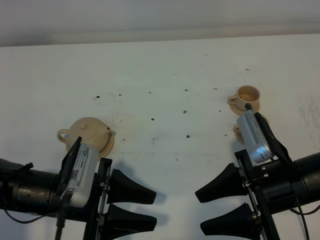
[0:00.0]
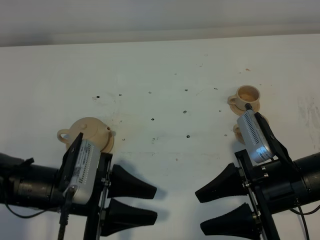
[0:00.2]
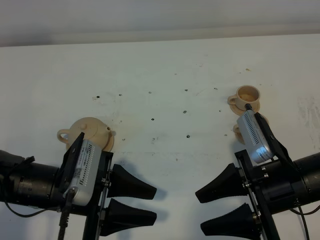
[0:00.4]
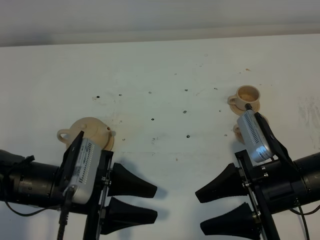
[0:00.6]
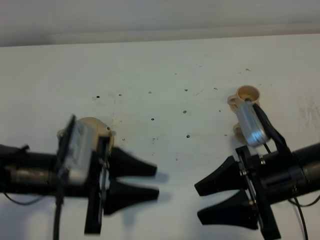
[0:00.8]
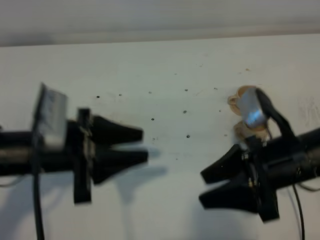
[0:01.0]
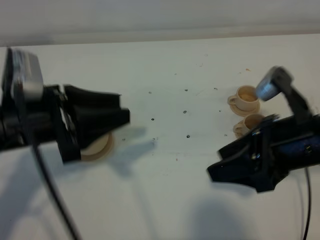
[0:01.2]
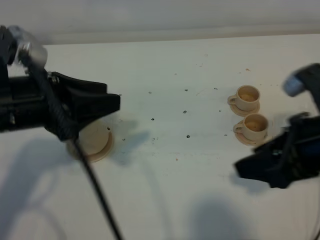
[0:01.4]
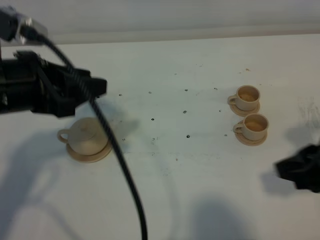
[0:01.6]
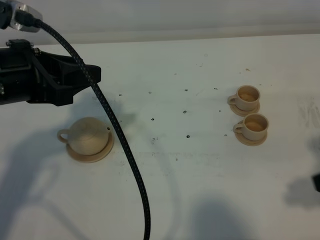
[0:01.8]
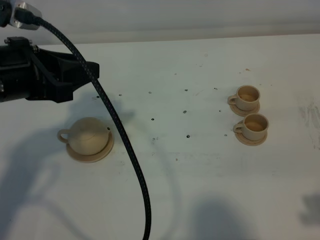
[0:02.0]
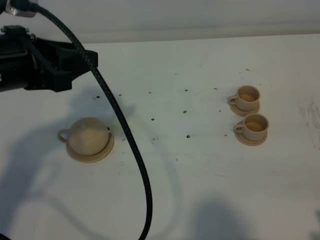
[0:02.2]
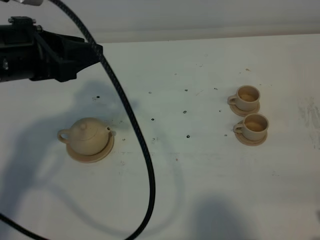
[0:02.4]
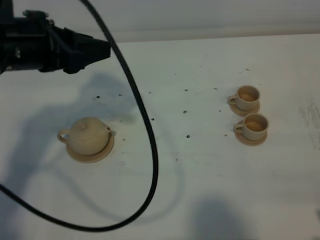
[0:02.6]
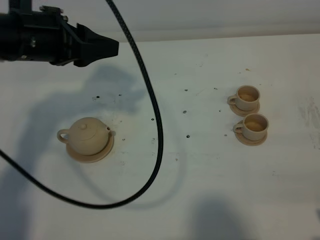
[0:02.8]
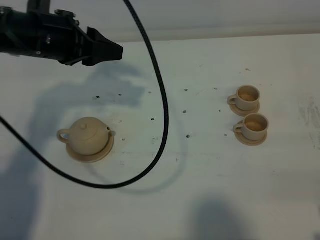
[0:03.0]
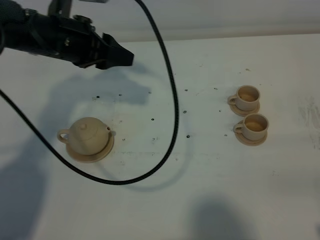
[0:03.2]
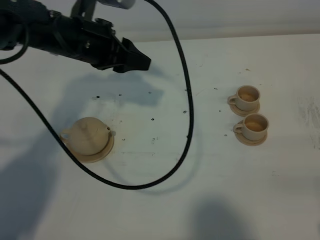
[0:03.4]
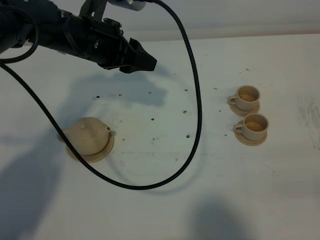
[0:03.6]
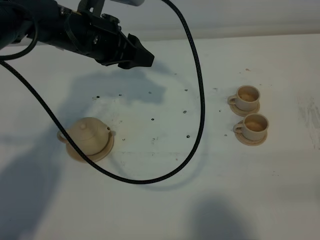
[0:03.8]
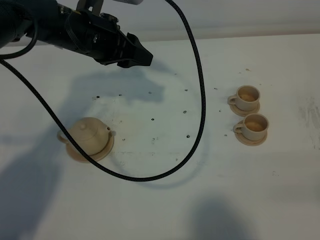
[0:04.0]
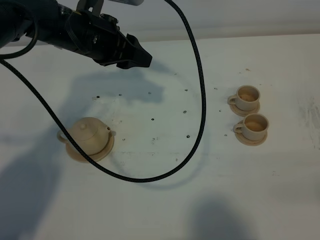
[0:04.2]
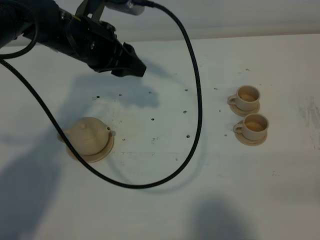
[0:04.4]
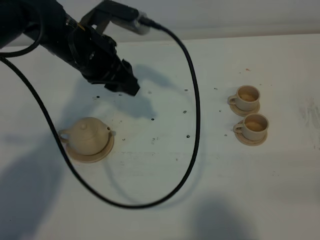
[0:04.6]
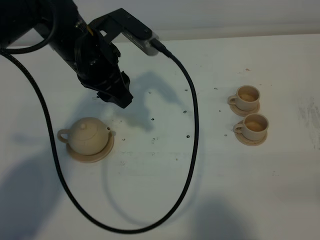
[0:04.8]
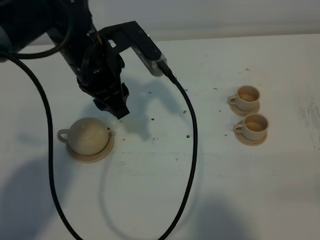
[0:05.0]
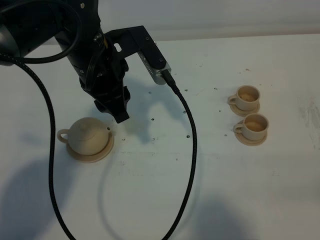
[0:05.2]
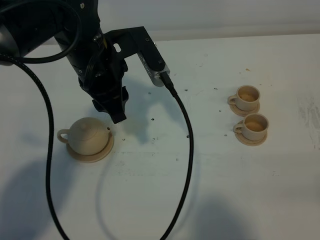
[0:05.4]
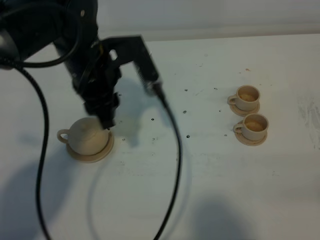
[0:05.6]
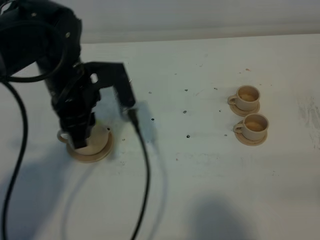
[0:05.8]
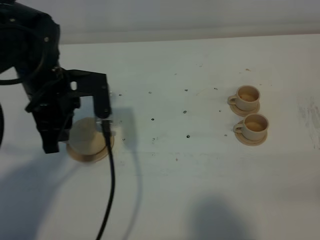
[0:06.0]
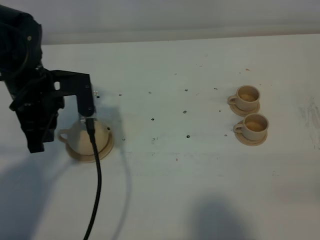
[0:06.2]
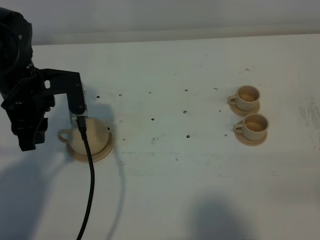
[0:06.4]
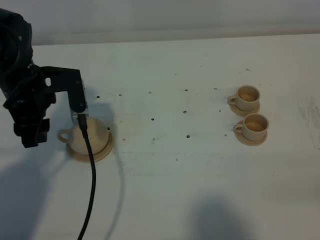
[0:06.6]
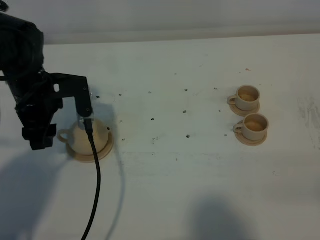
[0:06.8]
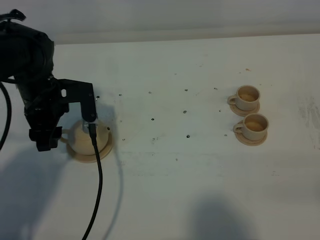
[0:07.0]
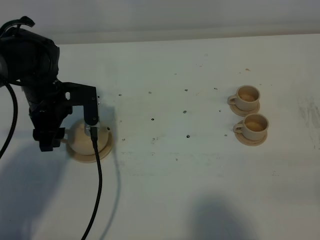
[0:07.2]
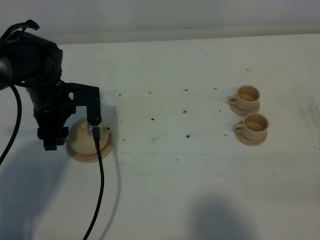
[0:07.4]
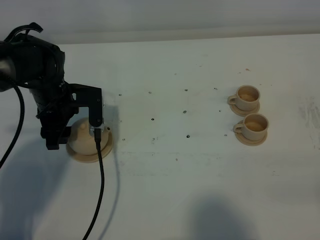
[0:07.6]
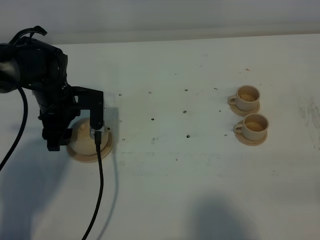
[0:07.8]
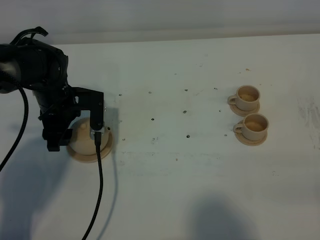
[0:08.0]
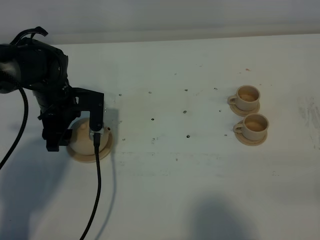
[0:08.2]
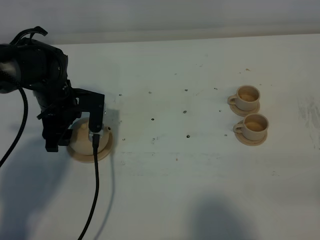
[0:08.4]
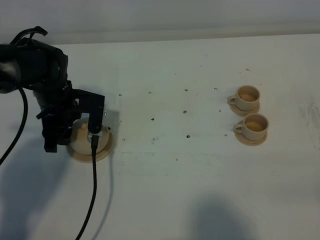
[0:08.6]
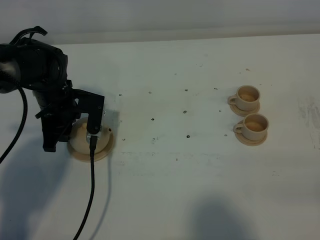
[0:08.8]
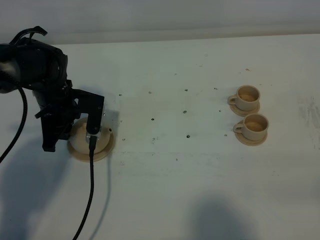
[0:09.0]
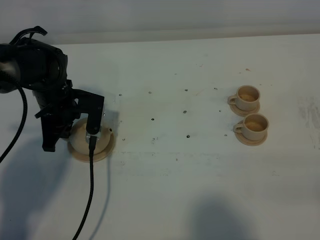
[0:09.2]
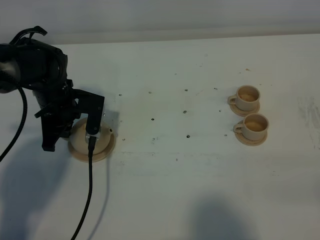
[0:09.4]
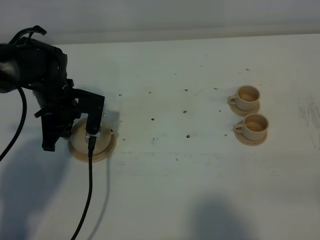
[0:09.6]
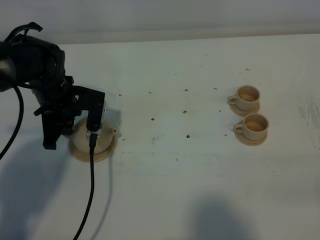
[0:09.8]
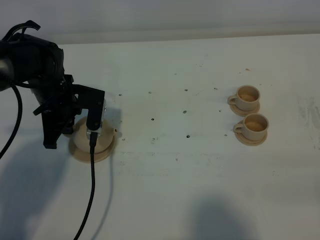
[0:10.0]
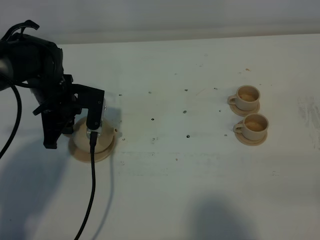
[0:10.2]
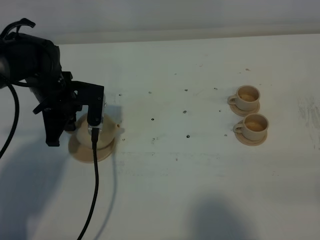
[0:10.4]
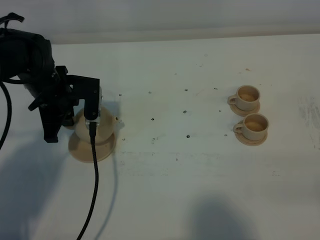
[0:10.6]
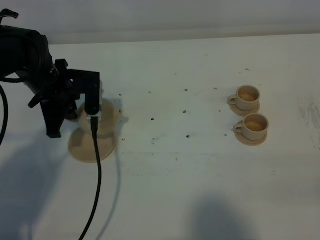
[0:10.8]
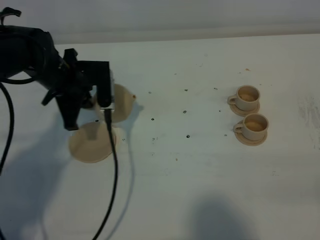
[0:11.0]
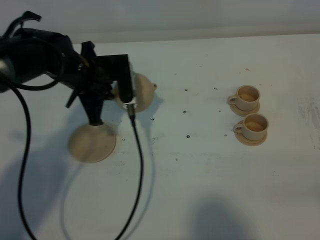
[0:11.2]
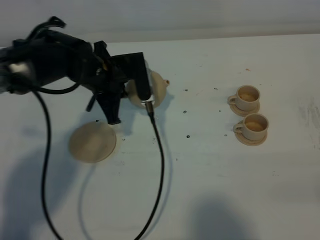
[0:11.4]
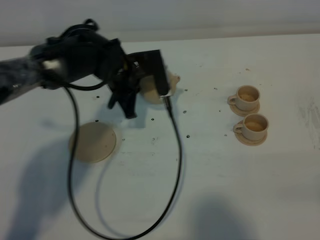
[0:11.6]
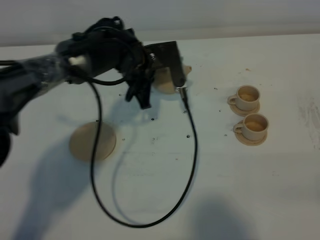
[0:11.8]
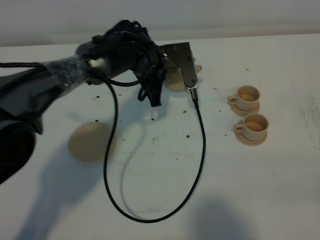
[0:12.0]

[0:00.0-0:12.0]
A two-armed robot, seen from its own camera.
Task of the whole recording: grasp the brown teapot and pour the tea into the two brown teacups one by one, put the brown teapot back in its original place.
Step, 0:00.0 to 0:10.4: Pick up the teapot with the left gripper.
0:00.0 to 0:01.6: The left gripper is displaced upward and forward by some 15 cm. Meanwhile the right gripper moves upward and to the right, about 10 cm.
0:01.6 to 0:03.0: The right gripper moves backward and to the right, approximately 10 cm, while the left gripper moves forward, some 10 cm.
0:03.0 to 0:04.4: The left gripper goes some 5 cm to the right.
0:04.4 to 0:06.0: The left gripper goes some 5 cm backward, and closes its fingers.
0:06.0 to 0:07.6: The left gripper travels downward and forward by about 10 cm, and opens its fingers.
0:07.6 to 0:09.0: The left gripper closes.
0:09.0 to 0:10.4: The grippers stay close to where they were, moving slightly.
0:10.4 to 0:12.0: The left gripper moves to the right, about 20 cm.

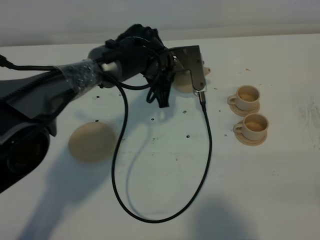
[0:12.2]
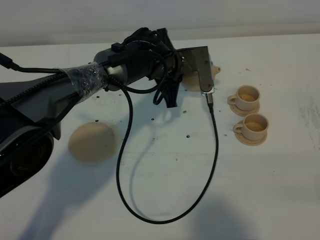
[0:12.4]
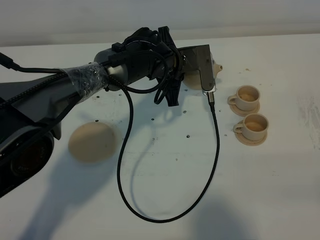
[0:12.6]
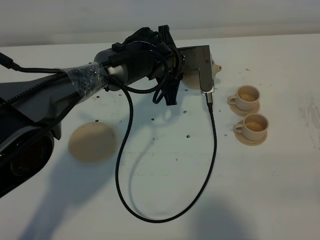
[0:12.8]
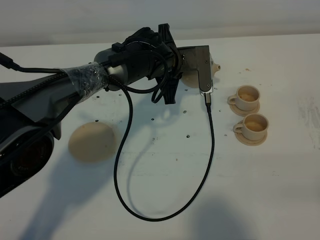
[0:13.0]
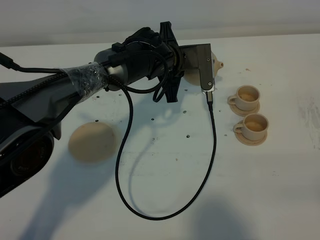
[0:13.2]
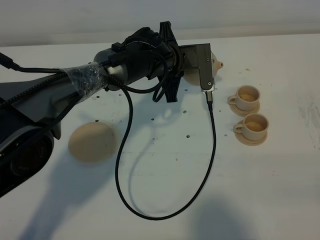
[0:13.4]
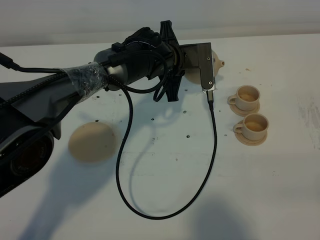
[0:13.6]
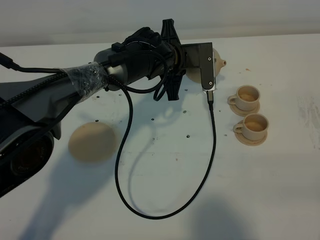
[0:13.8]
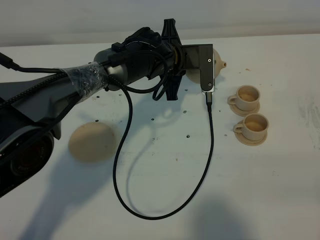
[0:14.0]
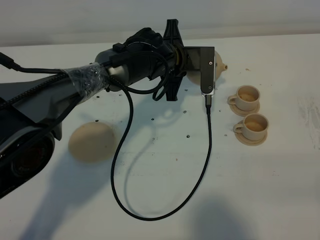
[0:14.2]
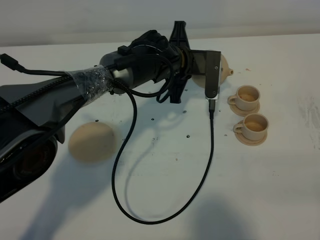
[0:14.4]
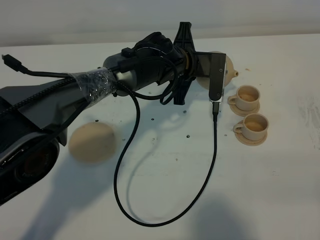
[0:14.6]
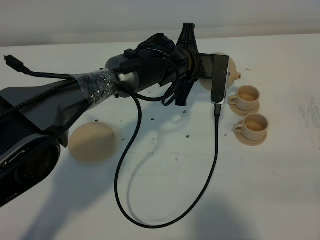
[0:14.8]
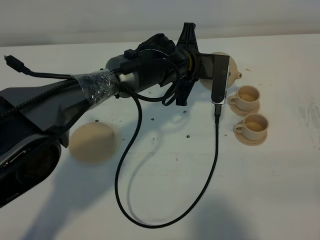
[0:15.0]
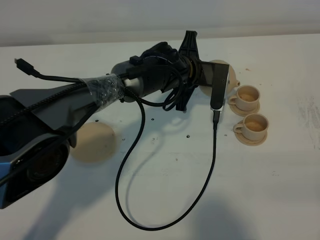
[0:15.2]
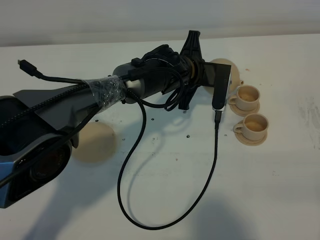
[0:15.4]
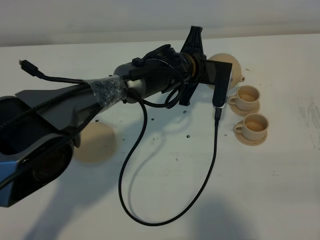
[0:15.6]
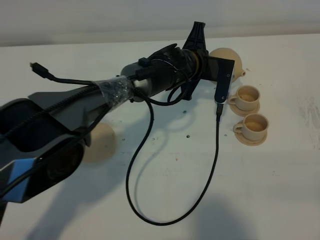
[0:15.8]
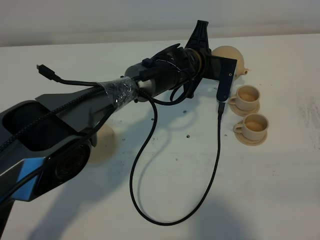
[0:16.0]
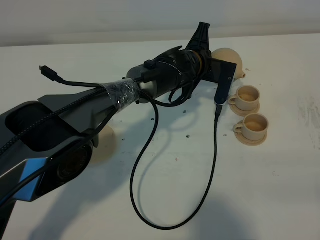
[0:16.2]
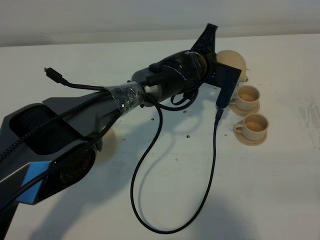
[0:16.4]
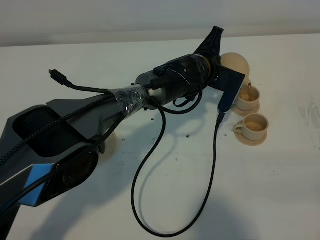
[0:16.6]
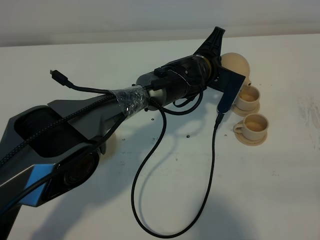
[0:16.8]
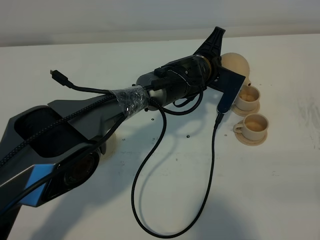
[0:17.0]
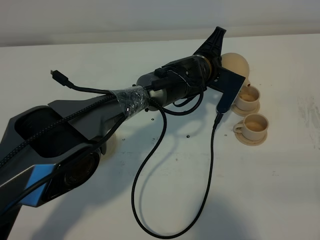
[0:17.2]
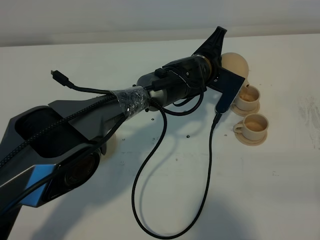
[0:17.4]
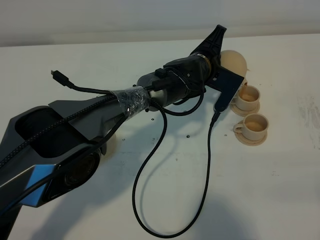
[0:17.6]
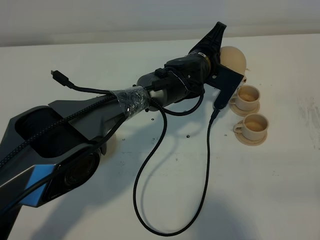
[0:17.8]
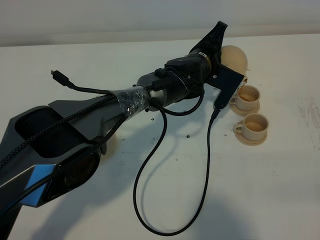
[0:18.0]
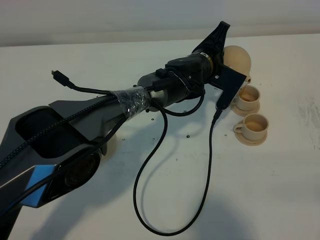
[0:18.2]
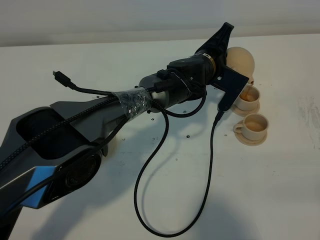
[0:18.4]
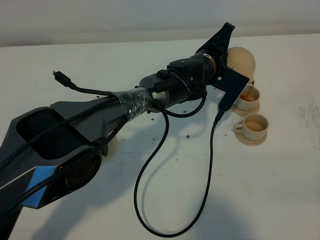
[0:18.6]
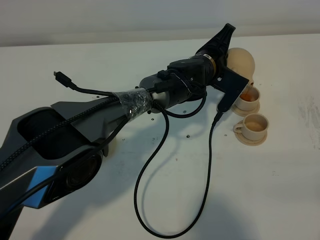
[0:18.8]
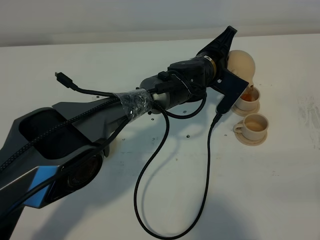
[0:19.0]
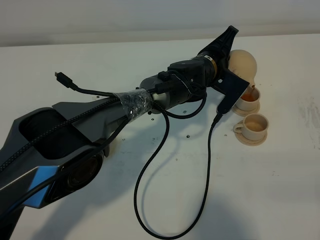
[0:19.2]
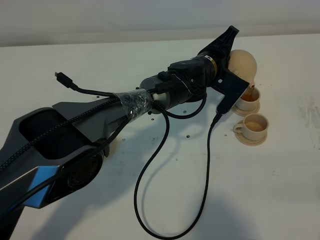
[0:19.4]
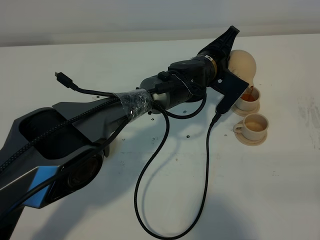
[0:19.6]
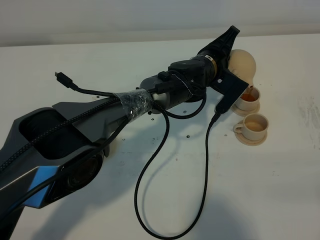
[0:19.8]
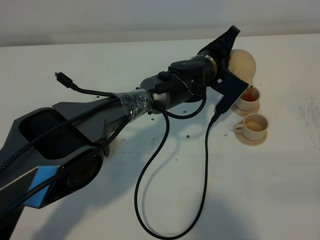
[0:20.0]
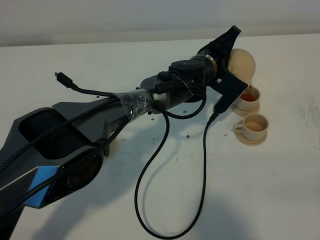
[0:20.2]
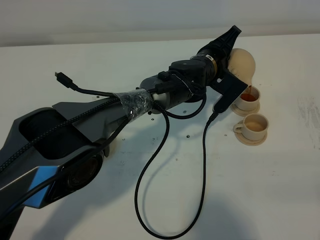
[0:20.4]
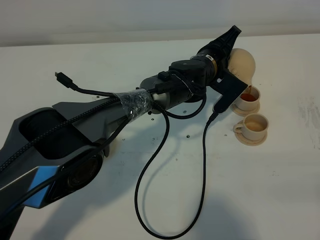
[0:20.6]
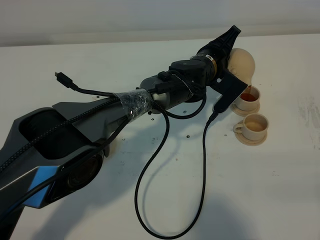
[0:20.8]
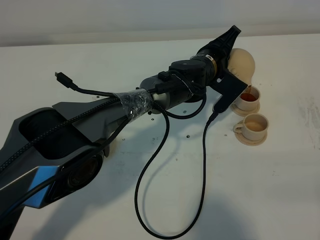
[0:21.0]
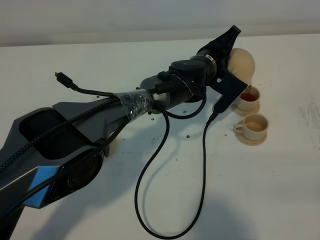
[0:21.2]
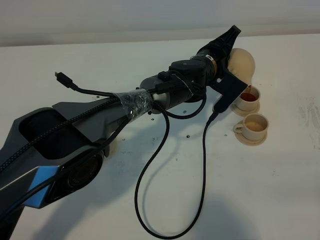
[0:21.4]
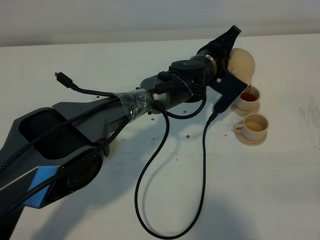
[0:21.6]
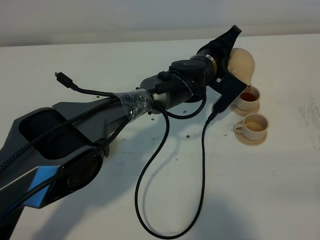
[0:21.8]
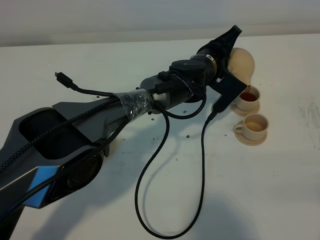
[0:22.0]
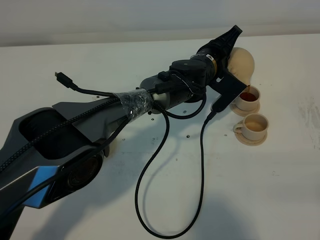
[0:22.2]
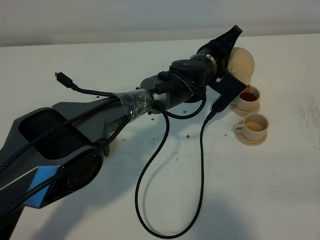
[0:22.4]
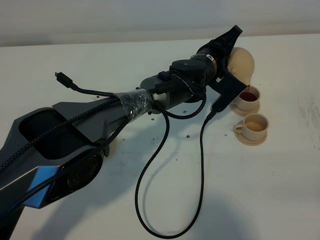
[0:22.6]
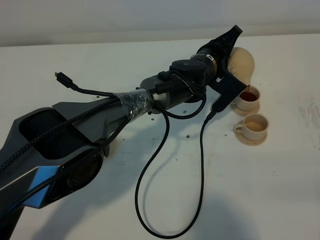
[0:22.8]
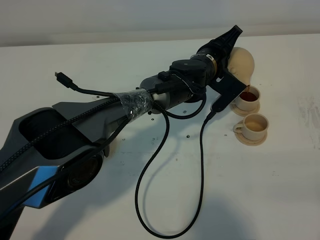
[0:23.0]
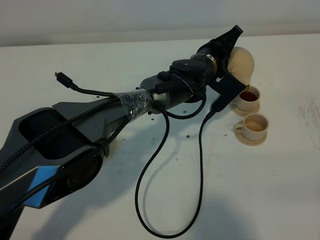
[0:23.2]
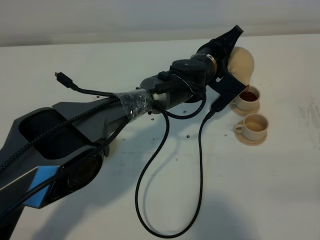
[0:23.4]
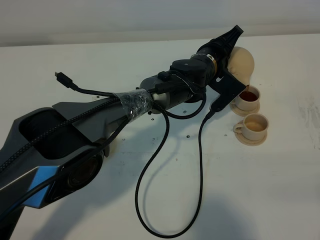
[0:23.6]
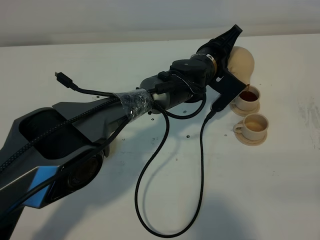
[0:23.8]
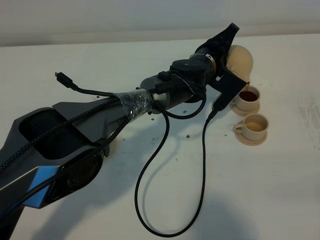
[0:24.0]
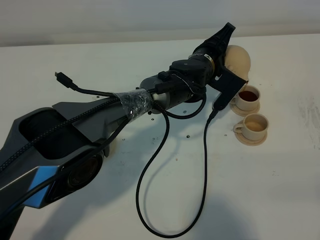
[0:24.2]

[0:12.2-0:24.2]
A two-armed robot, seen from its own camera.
Task of the whole recording: grasp the brown teapot and pour the tea into the two brown teacups one by one, put the brown teapot back in its original place.
0:12.2 to 0:13.8: There are only small adjustments of the grippers.
0:16.6 to 0:19.8: The grippers move only a little.
0:19.8 to 0:21.2: The two grippers keep their place.
0:21.2 to 0:22.6: Neither gripper changes place.
0:22.6 to 0:24.2: There are only small adjustments of the grippers.
